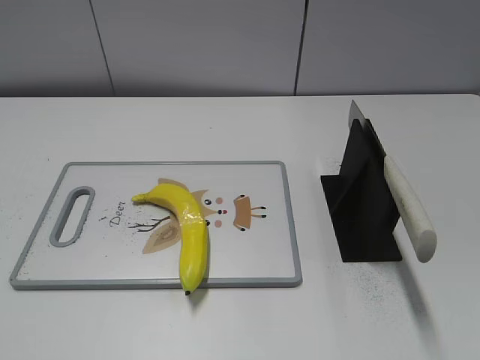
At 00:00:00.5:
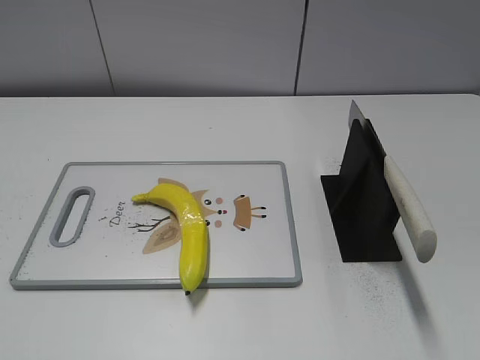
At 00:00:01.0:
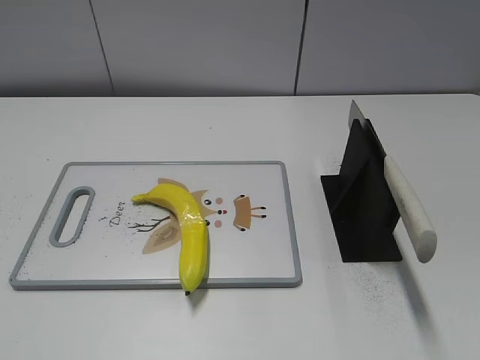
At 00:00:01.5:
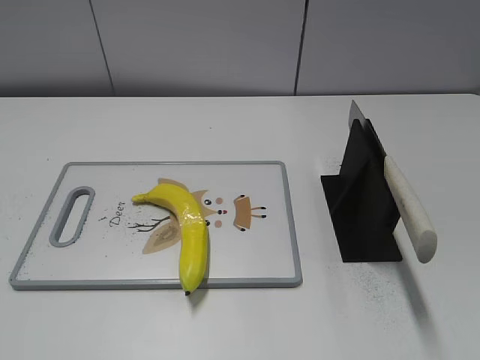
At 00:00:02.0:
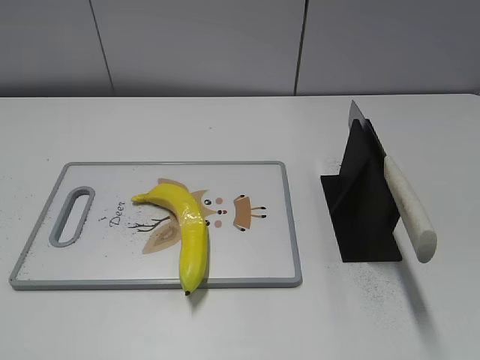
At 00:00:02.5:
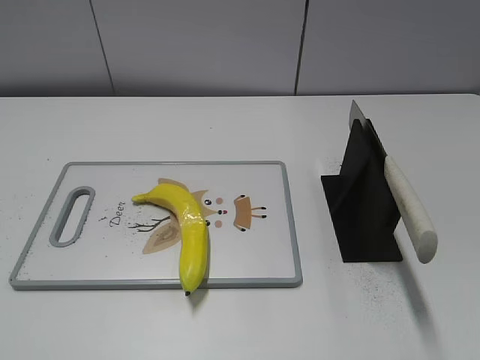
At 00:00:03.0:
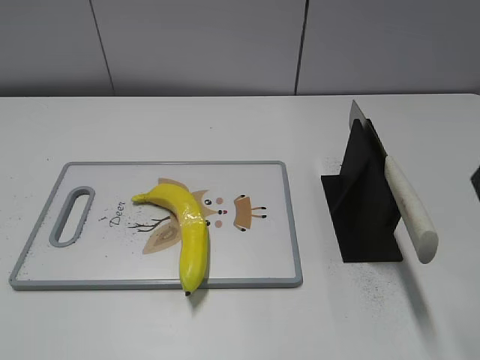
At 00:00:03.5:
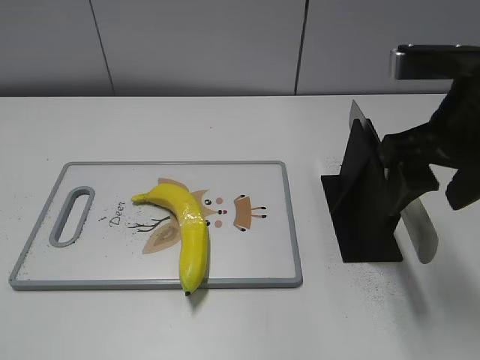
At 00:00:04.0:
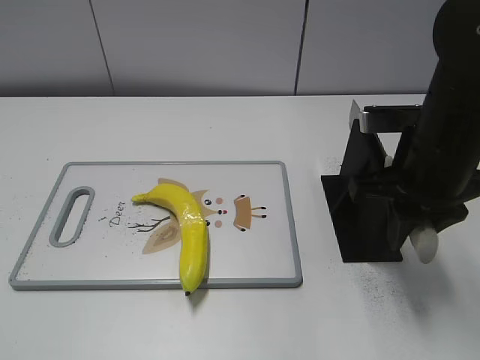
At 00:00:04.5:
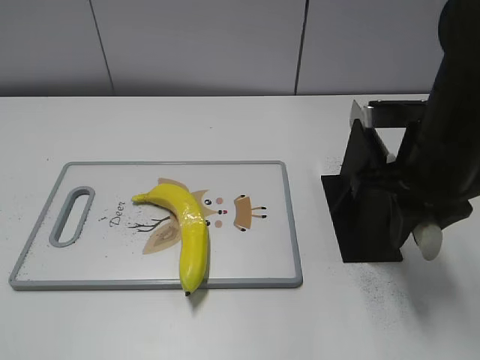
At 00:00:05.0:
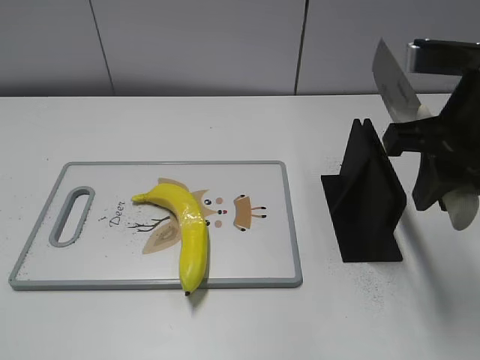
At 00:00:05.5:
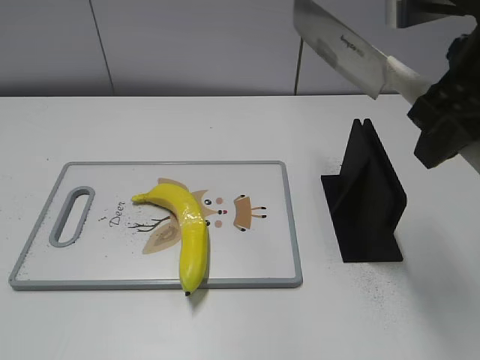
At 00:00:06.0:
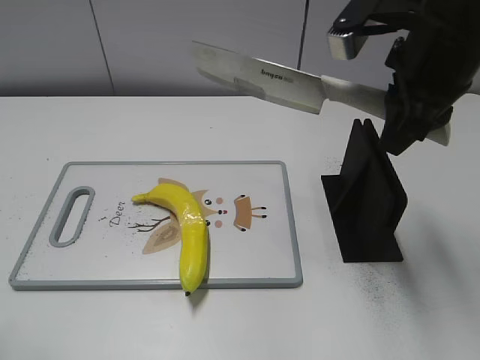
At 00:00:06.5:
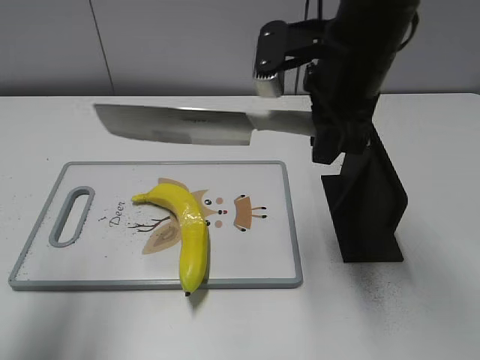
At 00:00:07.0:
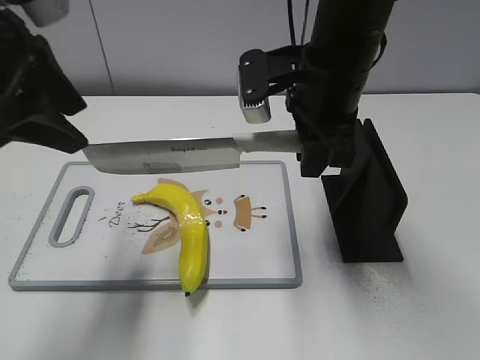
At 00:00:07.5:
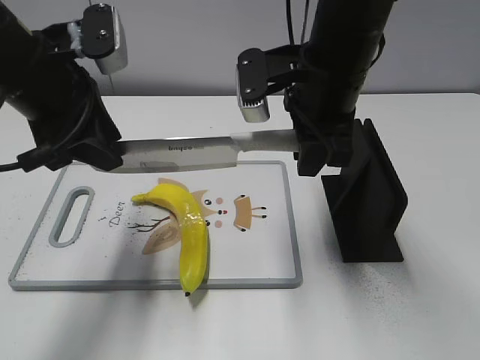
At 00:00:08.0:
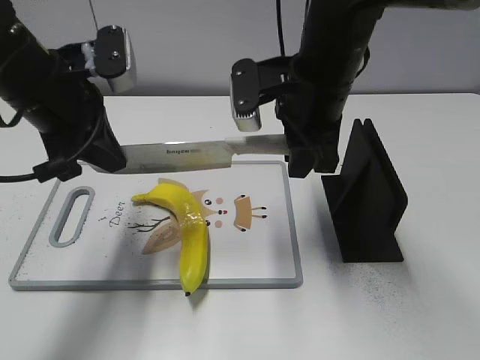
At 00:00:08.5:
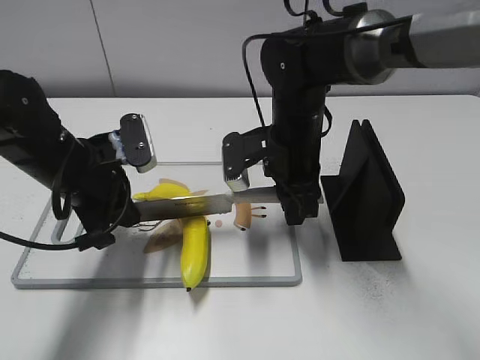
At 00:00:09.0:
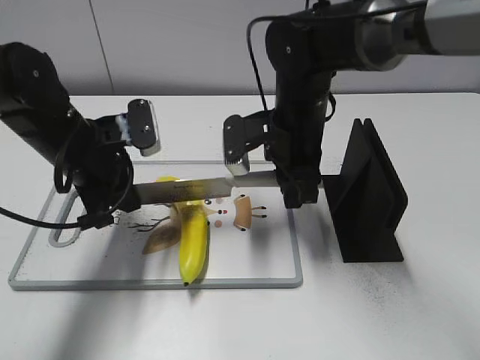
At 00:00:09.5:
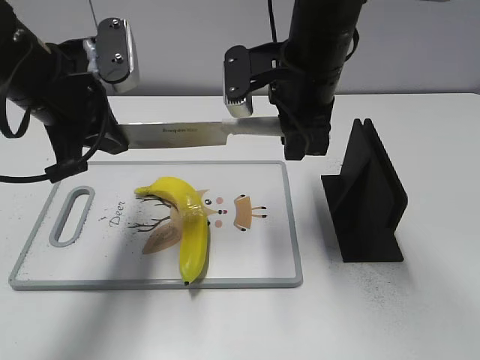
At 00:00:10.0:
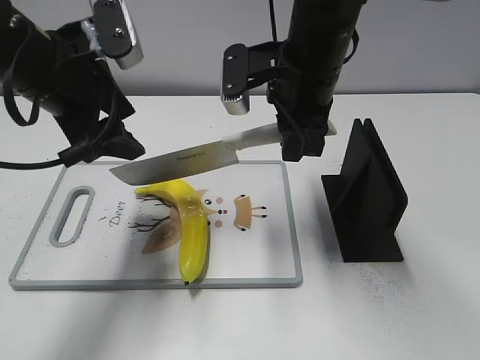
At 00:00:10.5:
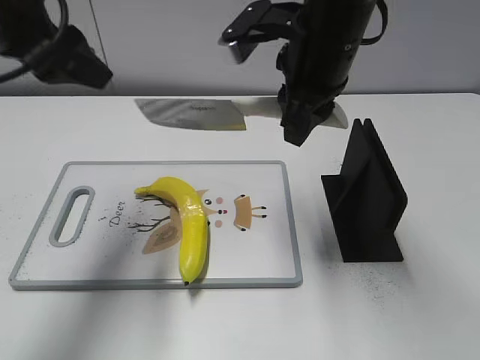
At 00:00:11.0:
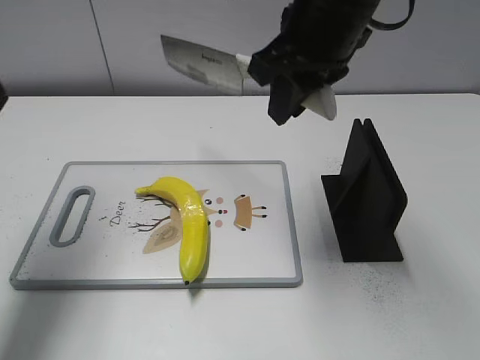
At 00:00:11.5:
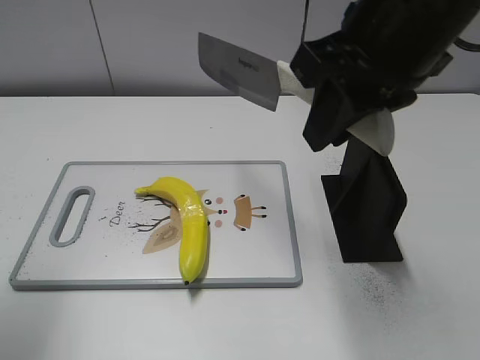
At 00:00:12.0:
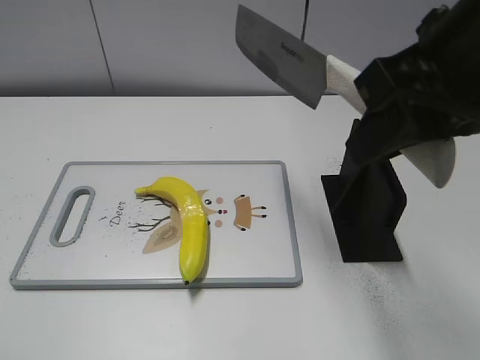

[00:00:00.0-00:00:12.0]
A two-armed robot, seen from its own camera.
Task of the whole recording: cut plastic banana.
Step, 00:00:00.0 to 00:00:05.0: Grab the knife handle with your right hand.
Step, 00:00:05.5 to 00:00:09.5: Hold the blade with your left hand.
Step, 00:00:10.0 to 00:00:10.5: Cut the banana with your right hand.
Step, 00:00:11.0 to 00:00:11.5: Lift the knife with your right hand.
00:00:02.0 to 00:00:04.0: The right gripper moves forward, to the left and downward, roughly 30 cm, and closes up.
00:00:04.0 to 00:00:06.0: The left gripper is displaced forward by roughly 10 cm. The right gripper goes approximately 10 cm upward.
00:00:06.0 to 00:00:08.0: The left gripper heads forward and to the right, covering about 25 cm, and closes, while the right gripper shifts roughly 10 cm to the left and downward.
00:00:08.0 to 00:00:10.0: The right gripper moves roughly 10 cm downward and comes back. The left gripper travels downward and back again, roughly 10 cm each way, and opens.
00:00:10.0 to 00:00:12.0: The right gripper travels backward, upward and to the right by some 20 cm. Meanwhile the left gripper is displaced backward and to the left by roughly 25 cm.

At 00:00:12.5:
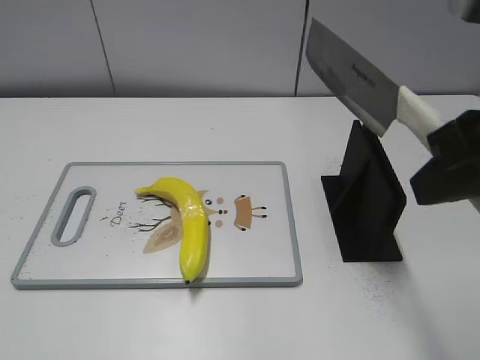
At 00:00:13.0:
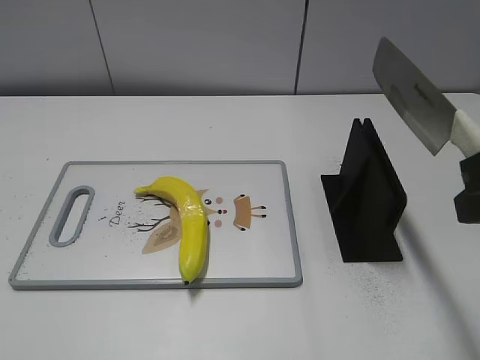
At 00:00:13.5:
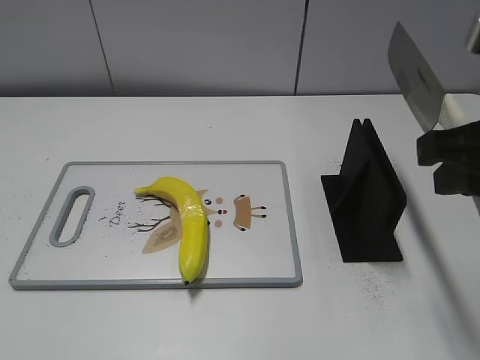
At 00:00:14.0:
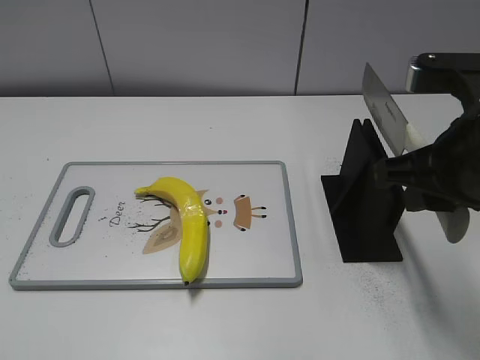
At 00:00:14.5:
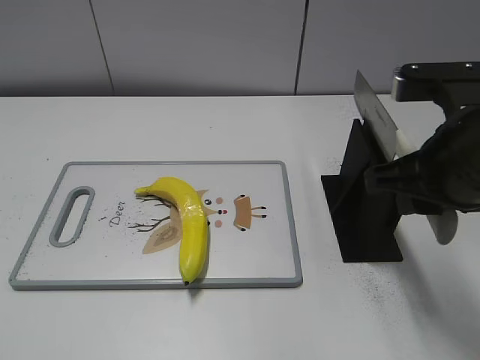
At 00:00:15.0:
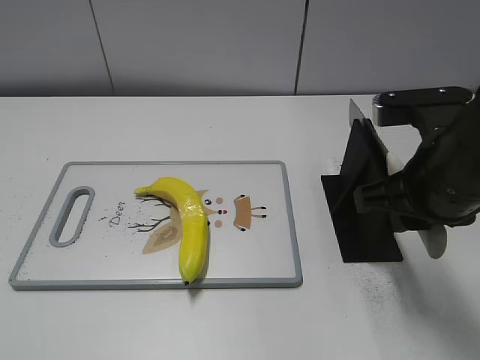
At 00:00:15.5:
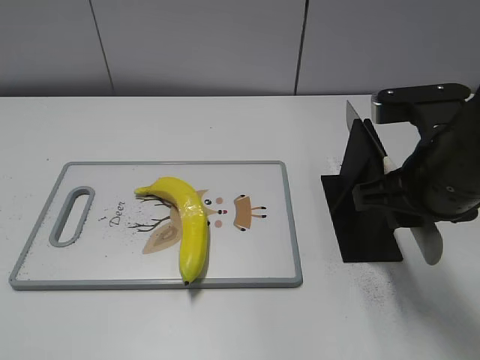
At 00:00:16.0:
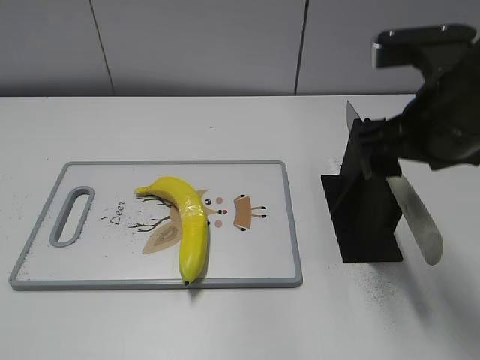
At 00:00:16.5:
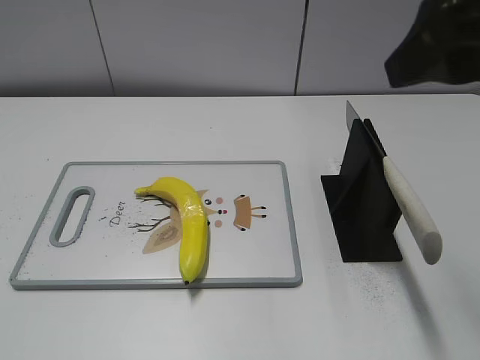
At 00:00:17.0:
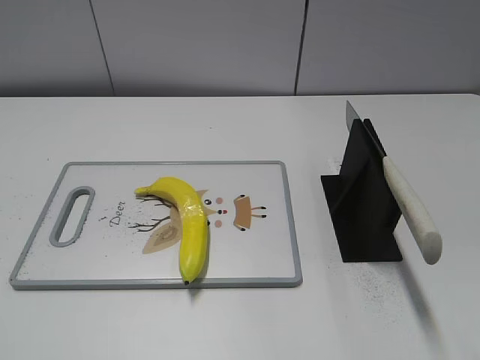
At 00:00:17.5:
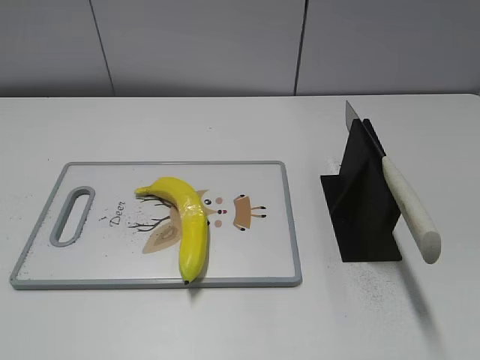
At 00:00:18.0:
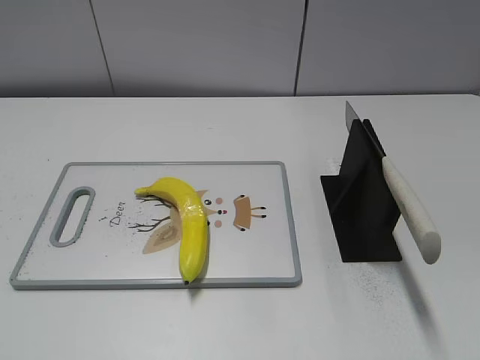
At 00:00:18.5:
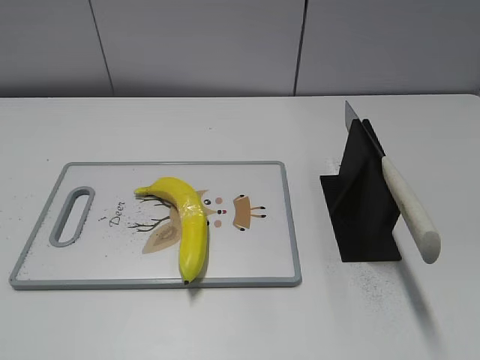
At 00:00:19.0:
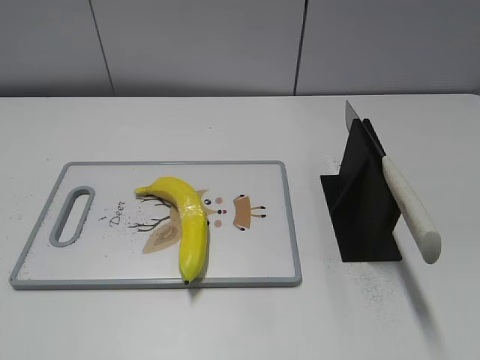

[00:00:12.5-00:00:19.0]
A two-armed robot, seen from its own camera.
Task of the whole recording: cut plastic banana.
Step, 00:00:12.5 to 00:00:19.0: Place the knife on the storage rack with your right hand.
00:00:12.5 to 00:00:14.5: The right gripper travels downward and forward by approximately 10 cm.
00:00:14.5 to 00:00:17.0: The right gripper heads backward, upward and to the right, covering roughly 15 cm, and opens.
